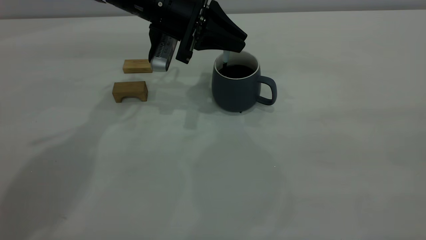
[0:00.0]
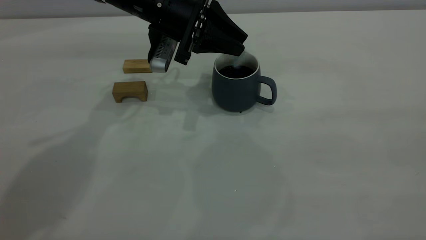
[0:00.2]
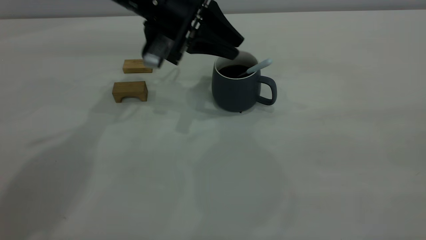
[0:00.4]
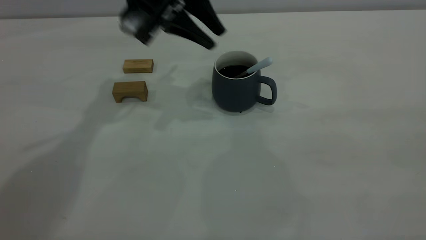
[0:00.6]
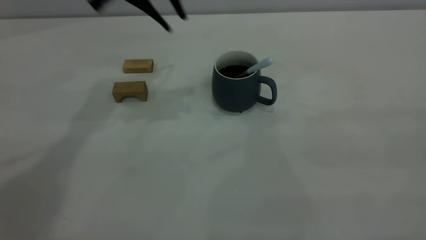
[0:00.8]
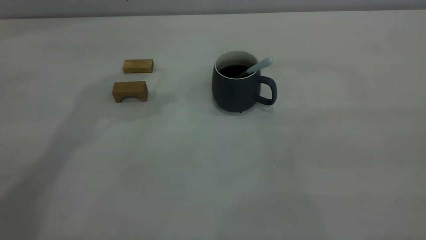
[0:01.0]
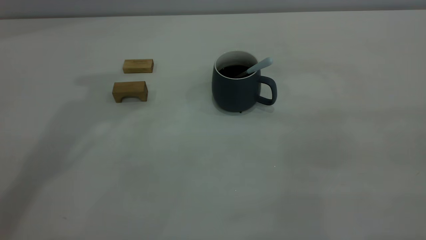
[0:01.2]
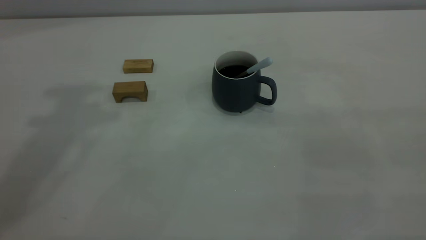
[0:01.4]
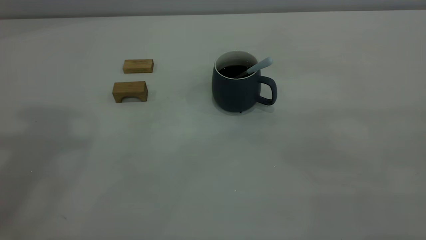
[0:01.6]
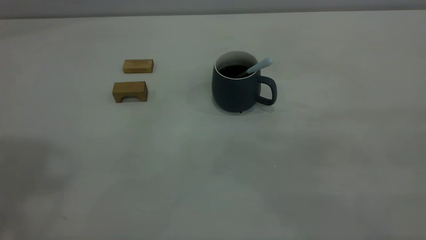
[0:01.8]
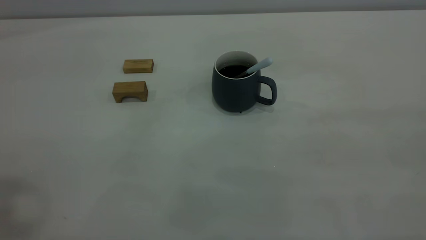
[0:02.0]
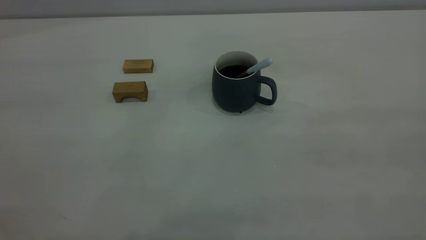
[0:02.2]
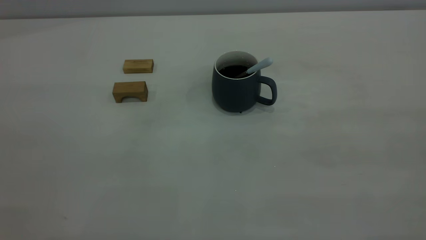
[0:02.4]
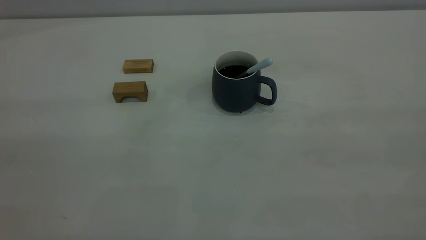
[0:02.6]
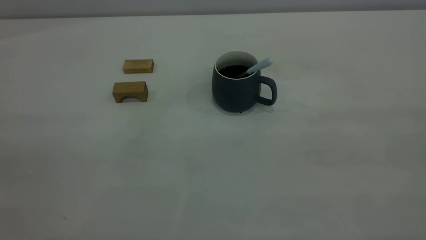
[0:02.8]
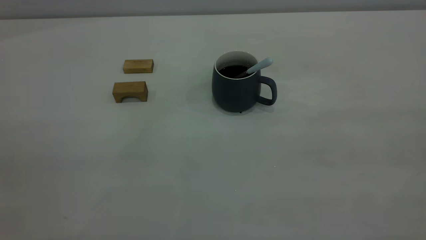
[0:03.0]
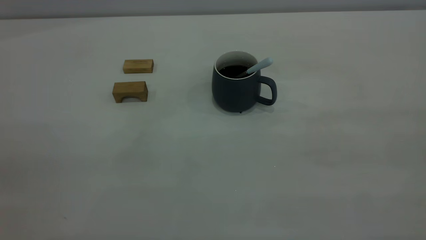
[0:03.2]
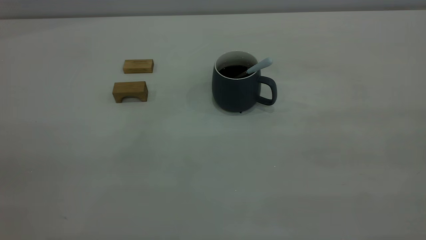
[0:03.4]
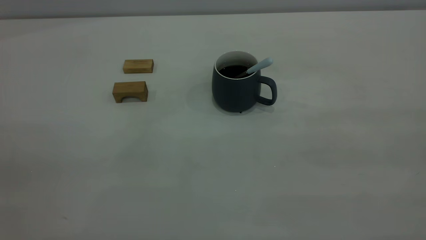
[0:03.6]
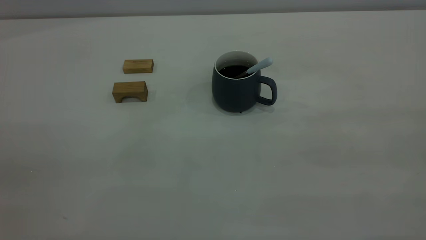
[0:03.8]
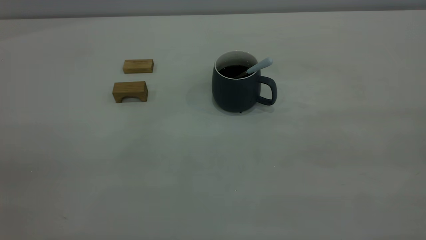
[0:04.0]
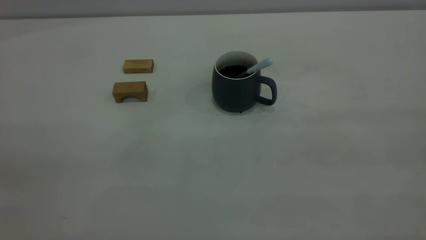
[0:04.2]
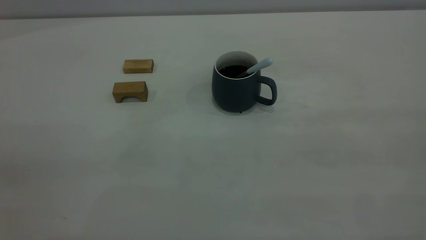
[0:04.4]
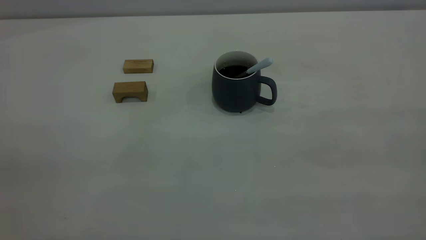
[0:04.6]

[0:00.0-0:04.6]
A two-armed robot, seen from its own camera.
0:00.0 to 0:01.6: The left gripper heads upward and backward, covering about 40 cm.
0:03.0 to 0:04.6: Both grippers stay about where they are.
